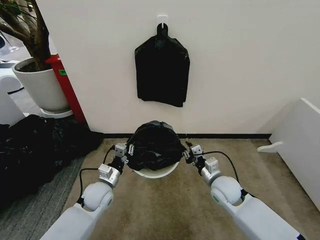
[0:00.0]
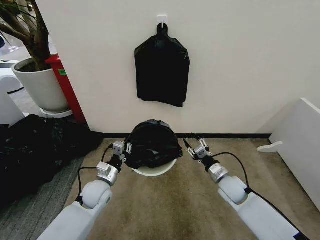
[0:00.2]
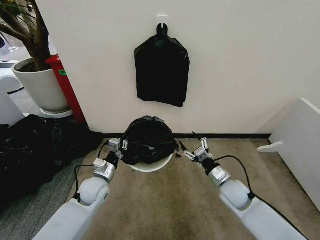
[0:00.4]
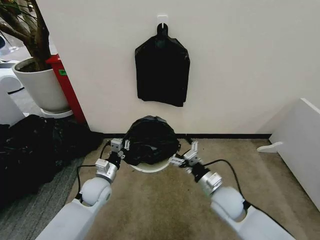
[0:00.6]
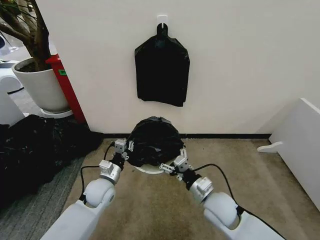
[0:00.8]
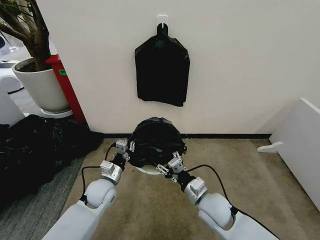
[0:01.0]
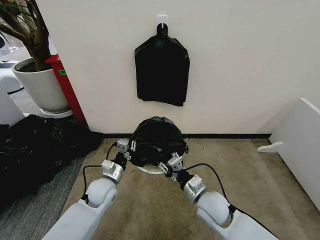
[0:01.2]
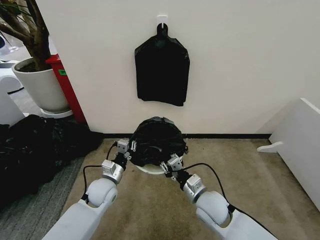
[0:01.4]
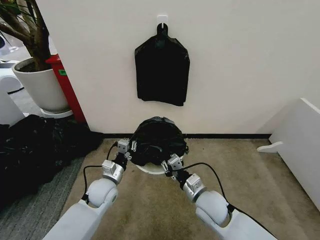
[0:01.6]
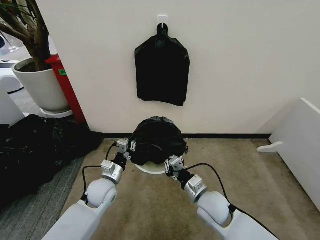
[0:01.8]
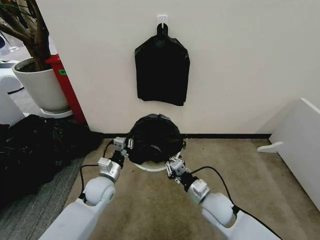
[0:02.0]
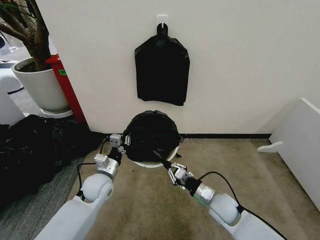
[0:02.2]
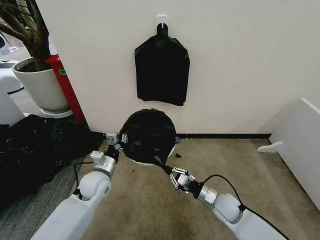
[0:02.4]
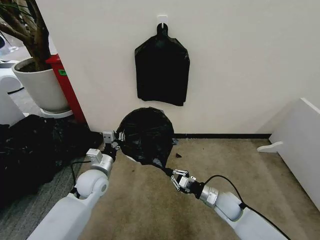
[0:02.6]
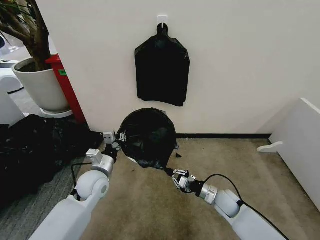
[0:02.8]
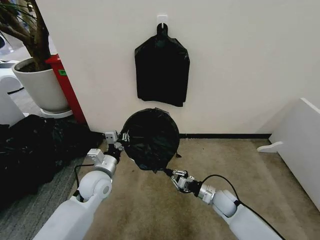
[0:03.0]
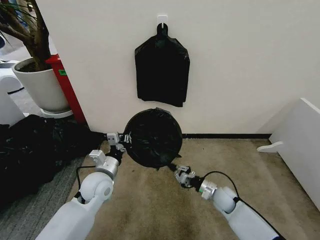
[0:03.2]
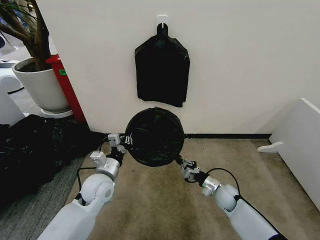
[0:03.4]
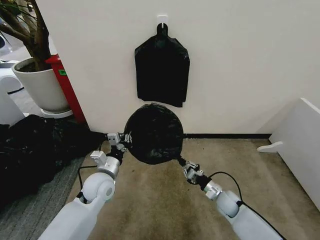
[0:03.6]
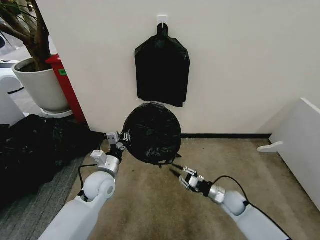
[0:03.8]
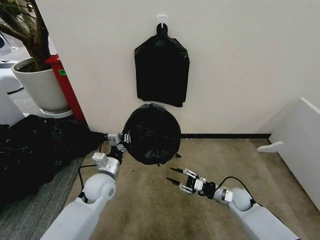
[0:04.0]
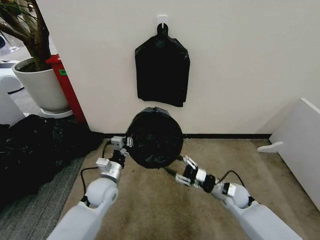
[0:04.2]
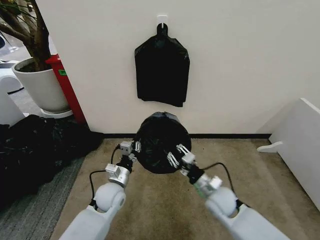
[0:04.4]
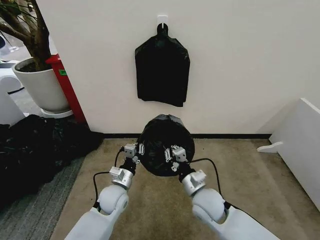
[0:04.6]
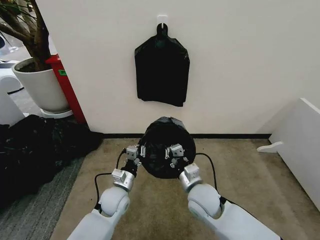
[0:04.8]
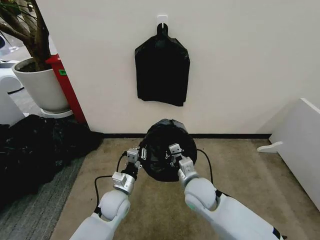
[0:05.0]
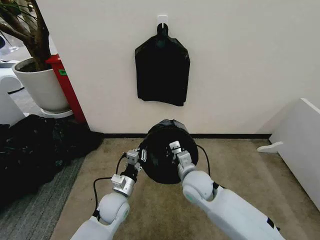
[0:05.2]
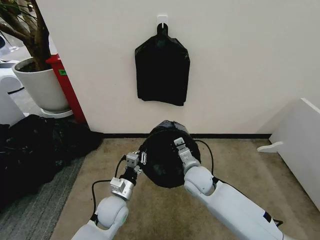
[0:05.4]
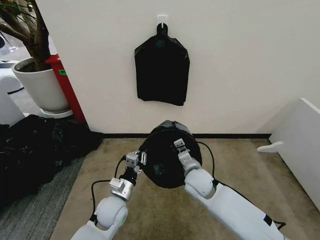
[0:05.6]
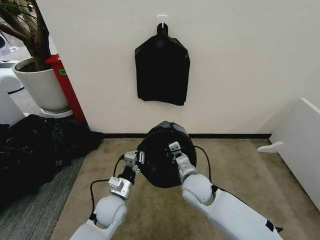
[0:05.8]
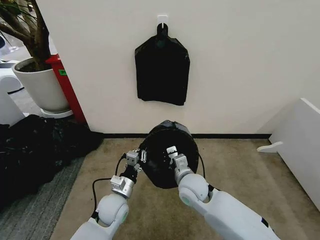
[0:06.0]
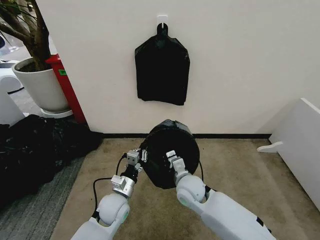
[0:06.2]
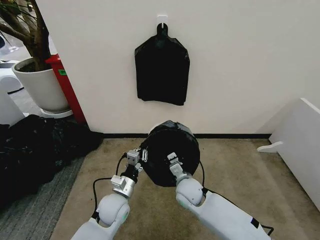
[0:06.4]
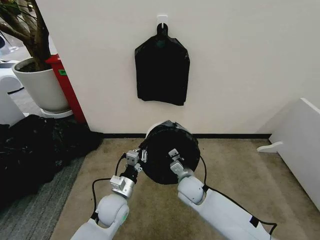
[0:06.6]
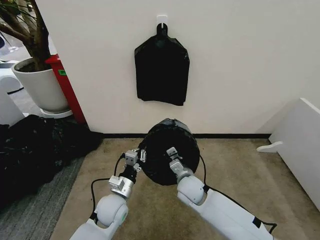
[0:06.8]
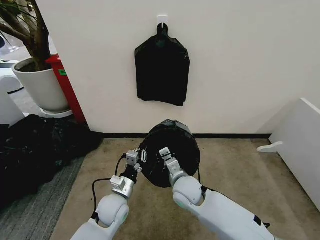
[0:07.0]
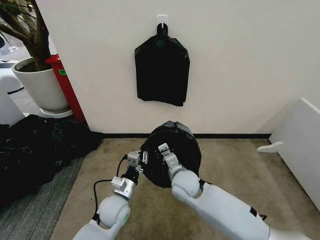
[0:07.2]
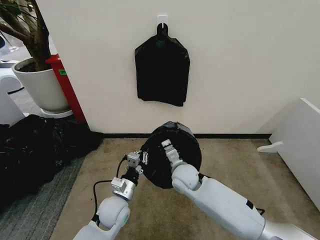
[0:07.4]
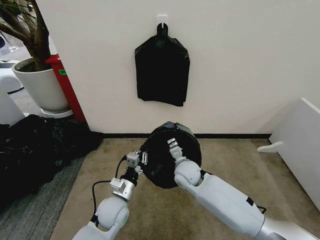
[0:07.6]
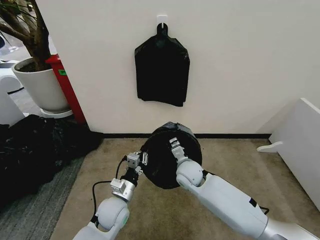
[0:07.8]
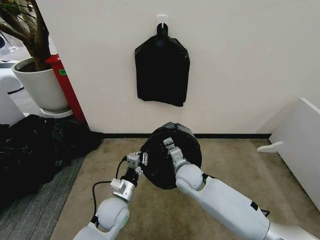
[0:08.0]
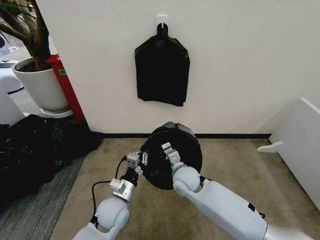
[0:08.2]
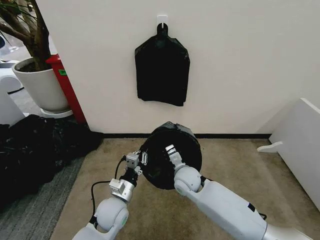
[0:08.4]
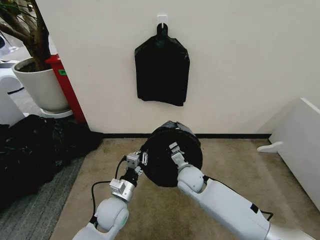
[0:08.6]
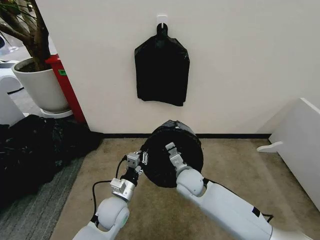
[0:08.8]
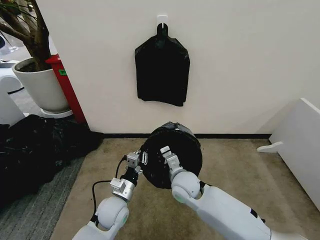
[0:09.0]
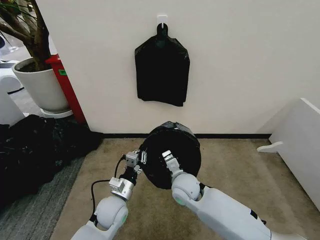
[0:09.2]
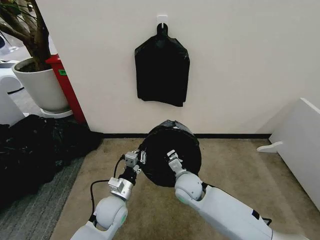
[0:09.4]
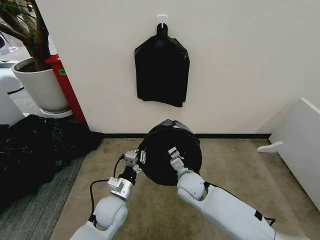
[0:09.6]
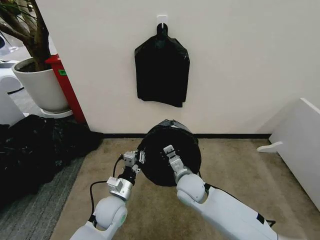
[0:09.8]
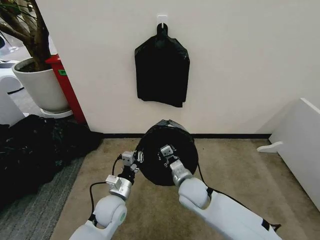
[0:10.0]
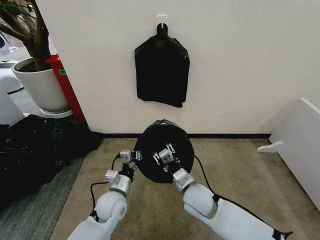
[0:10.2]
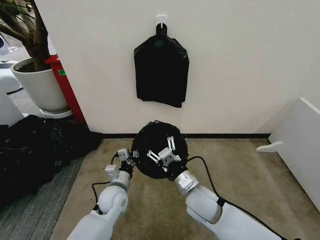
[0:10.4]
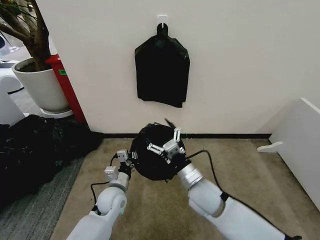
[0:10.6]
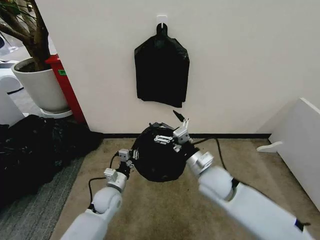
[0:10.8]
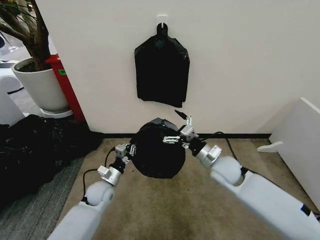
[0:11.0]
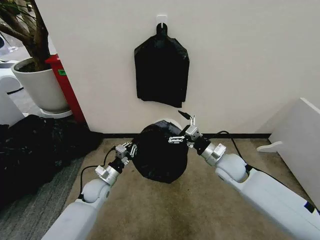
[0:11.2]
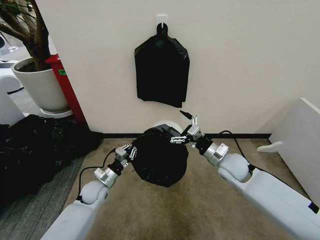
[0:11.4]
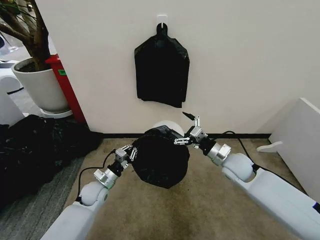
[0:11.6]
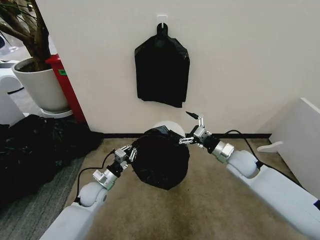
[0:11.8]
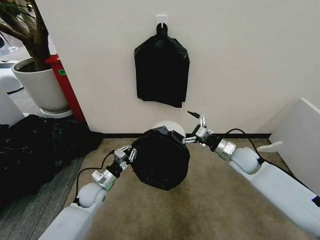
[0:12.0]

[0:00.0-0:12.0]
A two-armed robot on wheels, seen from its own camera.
Task of the whole recording: Place the garbage bag over the trash bin.
0:00.0 to 0:01.6: The right gripper shifts approximately 10 cm to the left and backward, and opens, then closes again.
0:01.6 to 0:03.0: The left gripper travels upward by approximately 5 cm. Meanwhile the right gripper moves downward, to the right and forward, about 15 cm.
0:03.0 to 0:04.4: The right gripper heads upward, covering some 10 cm; the left gripper is displaced downward by some 5 cm.
0:04.4 to 0:06.0: The right gripper heads to the left and upward, covering some 10 cm.
0:06.0 to 0:07.6: The right gripper is displaced forward by about 5 cm.
0:07.6 to 0:09.0: The right gripper travels backward by about 5 cm.
0:09.0 to 0:10.4: The right gripper moves backward, roughly 5 cm, and opens.
0:10.4 to 0:12.0: The right gripper moves to the right and forward, about 25 cm, and opens. The left gripper goes about 10 cm to the left.

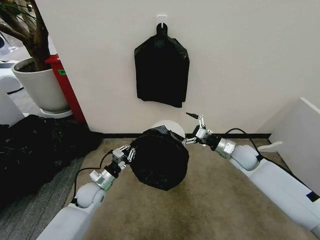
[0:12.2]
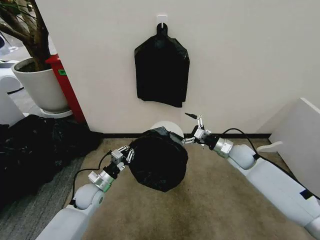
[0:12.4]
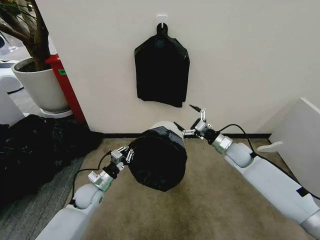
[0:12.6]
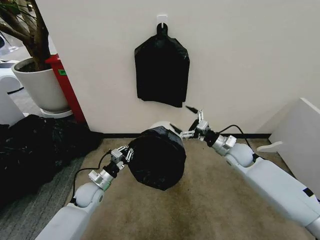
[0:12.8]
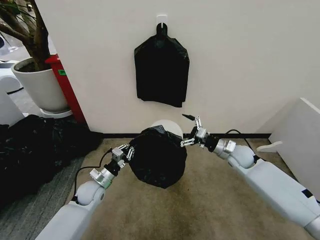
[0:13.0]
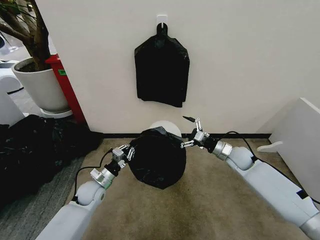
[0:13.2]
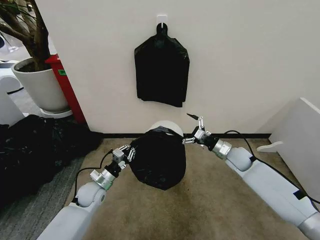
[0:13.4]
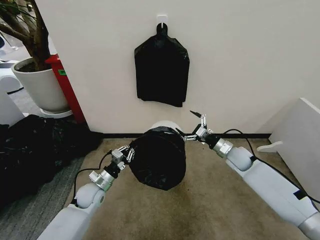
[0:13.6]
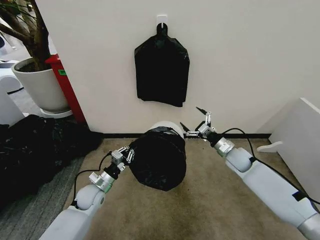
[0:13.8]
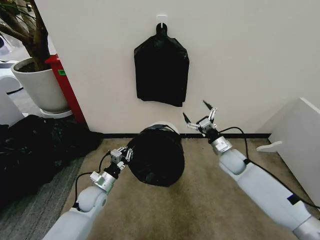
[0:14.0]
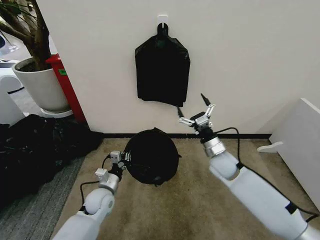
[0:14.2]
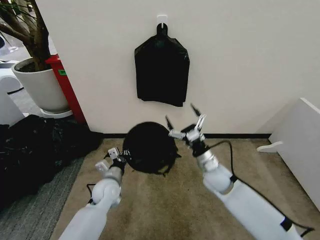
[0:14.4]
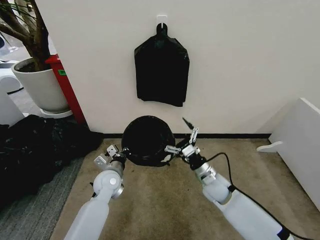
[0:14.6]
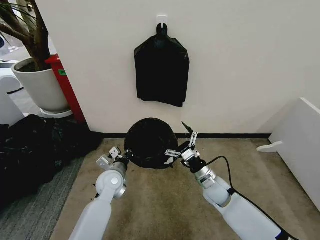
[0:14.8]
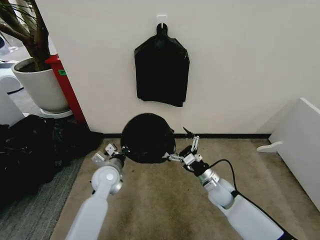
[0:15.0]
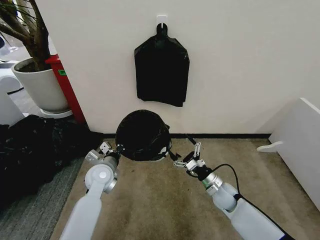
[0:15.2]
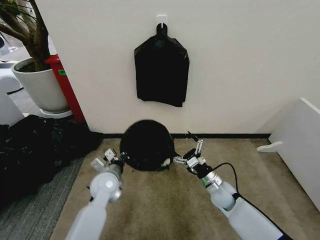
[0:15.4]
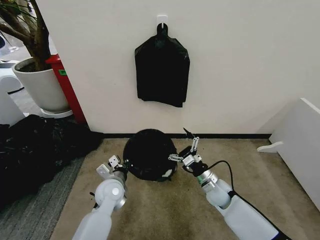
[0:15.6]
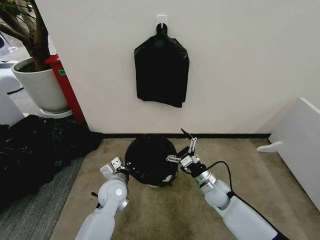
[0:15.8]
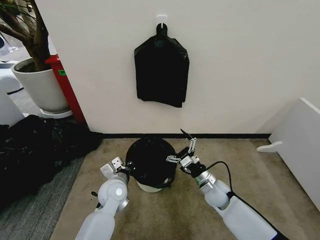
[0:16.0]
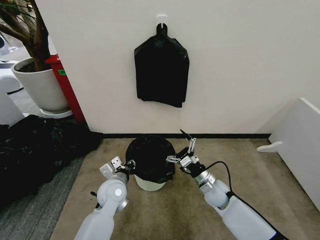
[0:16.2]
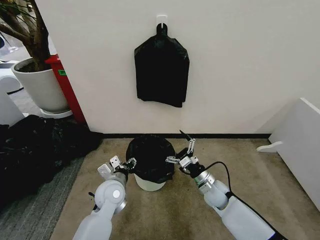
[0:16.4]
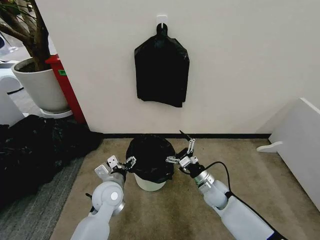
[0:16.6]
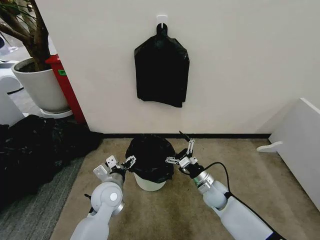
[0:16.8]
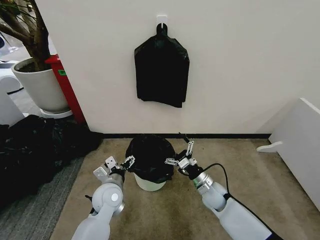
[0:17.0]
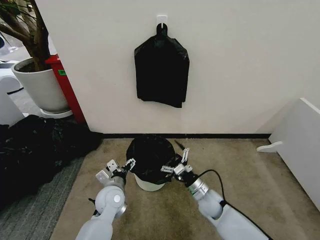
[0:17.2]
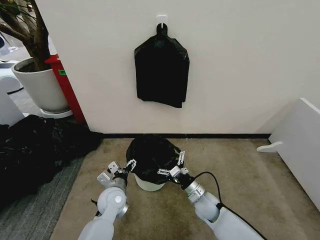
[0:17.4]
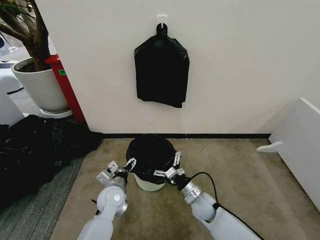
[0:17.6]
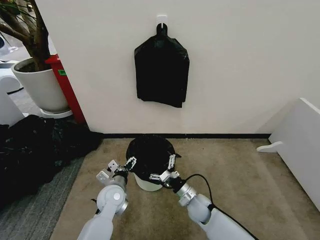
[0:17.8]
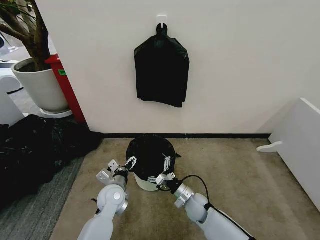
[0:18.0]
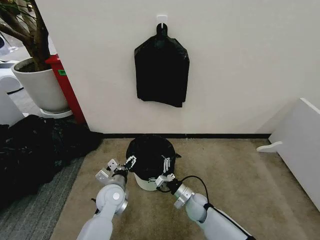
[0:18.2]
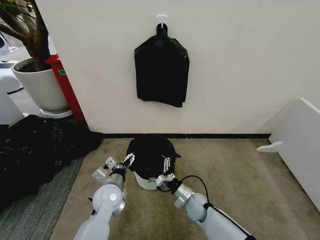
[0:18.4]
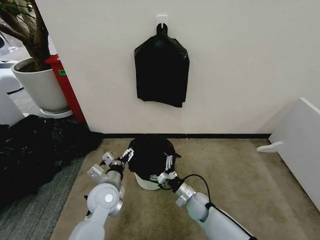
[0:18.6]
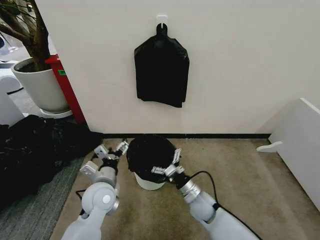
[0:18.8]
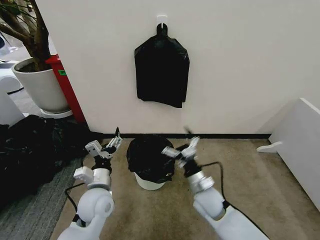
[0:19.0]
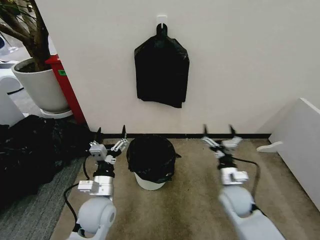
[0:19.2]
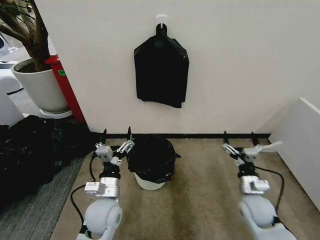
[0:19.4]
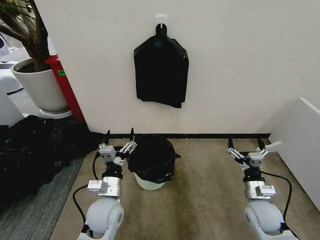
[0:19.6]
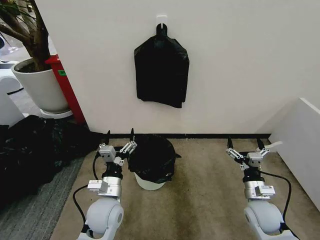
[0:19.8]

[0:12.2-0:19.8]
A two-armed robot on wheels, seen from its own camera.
Task of the whole recording: Place the garbage bag over the trash bin.
0:12.2 to 0:13.8: There are only small adjustments of the grippers.
0:13.8 to 0:15.2: The left gripper is displaced upward and to the right by roughly 10 cm; the right gripper moves backward, downward and to the left, some 15 cm.
0:15.2 to 0:16.8: The left gripper shifts approximately 5 cm backward, and opens its fingers.
0:16.8 to 0:18.2: The right gripper is displaced to the left and downward by roughly 10 cm.
0:18.2 to 0:19.8: The right gripper travels to the right and upward by about 20 cm, while the left gripper moves backward and upward, about 10 cm.

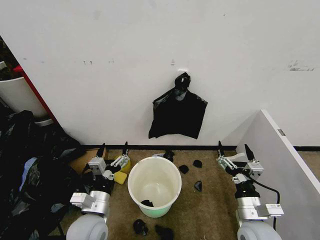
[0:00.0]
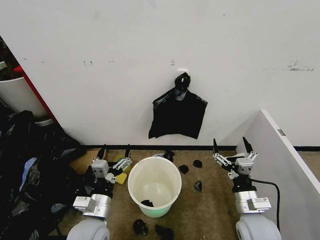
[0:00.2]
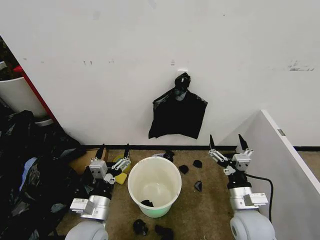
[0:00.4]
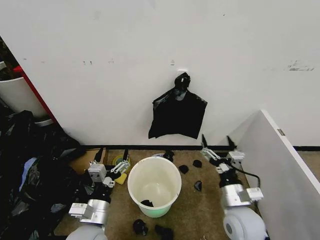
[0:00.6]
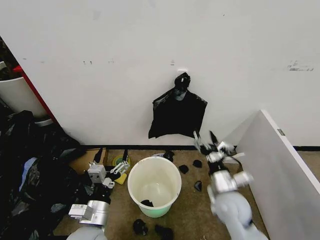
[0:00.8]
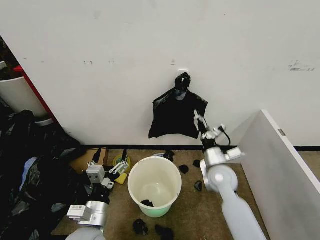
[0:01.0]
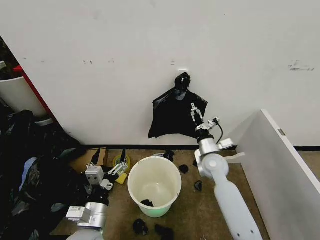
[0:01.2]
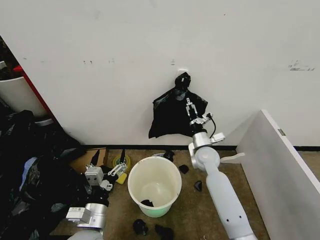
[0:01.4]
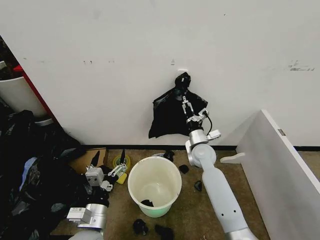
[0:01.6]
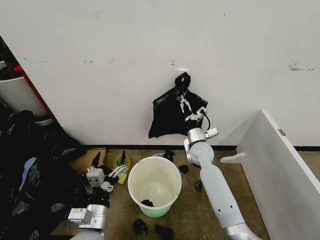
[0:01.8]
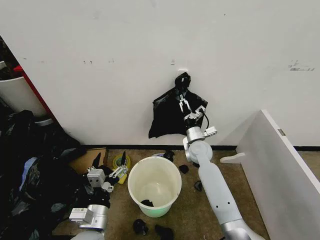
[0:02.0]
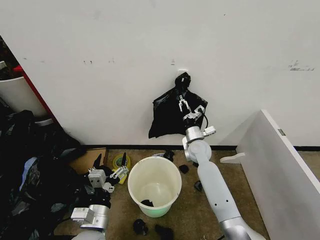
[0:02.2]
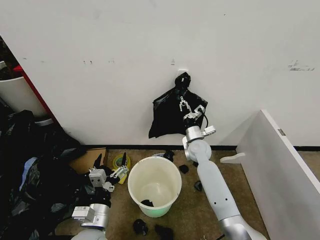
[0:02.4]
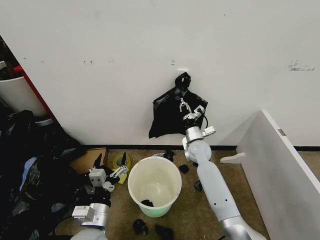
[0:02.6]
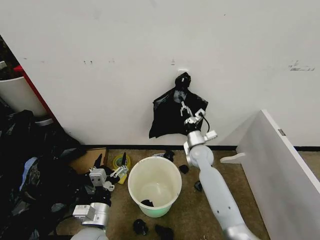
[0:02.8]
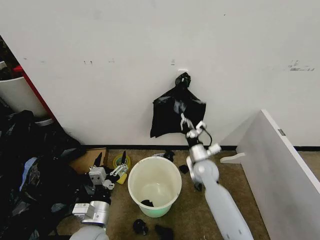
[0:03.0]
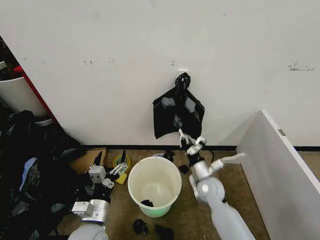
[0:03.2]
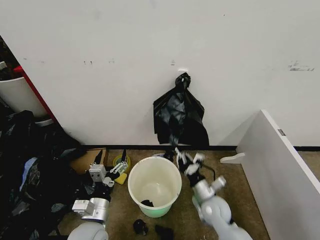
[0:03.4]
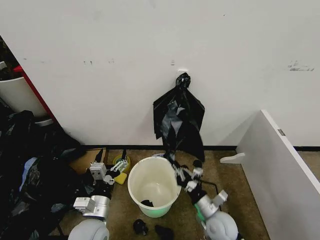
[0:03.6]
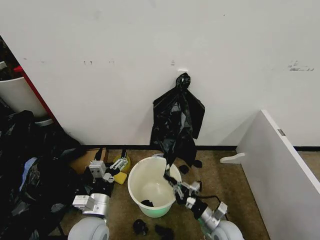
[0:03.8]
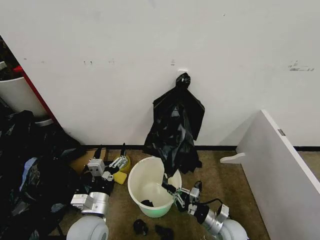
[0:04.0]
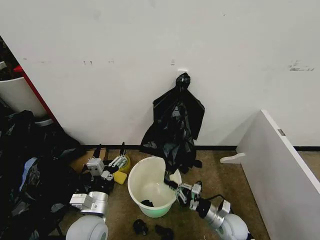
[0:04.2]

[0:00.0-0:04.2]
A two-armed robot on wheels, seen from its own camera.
Task of the whole recording: Place the garbage bag over the trash bin.
0:01.4 to 0:02.8: The right gripper closes.
0:02.8 to 0:04.2: The right gripper shifts some 25 cm backward, downward and to the right.
